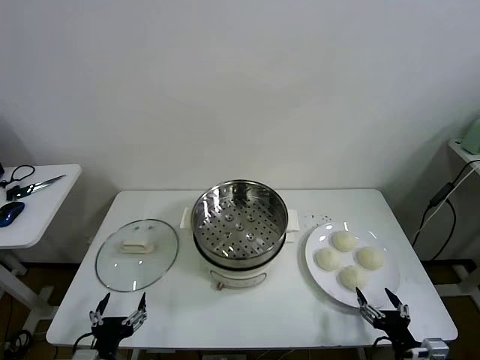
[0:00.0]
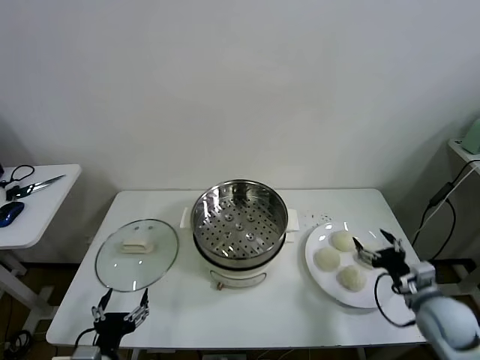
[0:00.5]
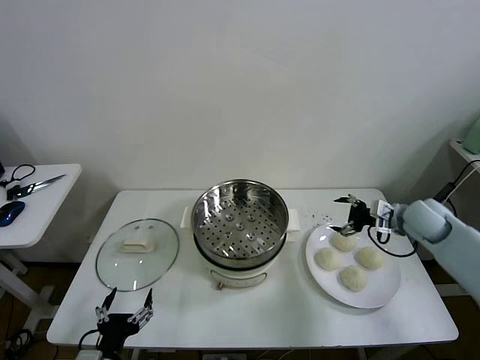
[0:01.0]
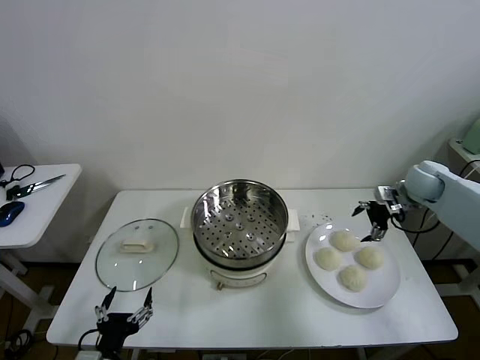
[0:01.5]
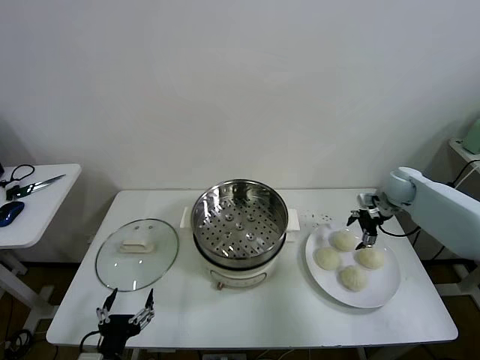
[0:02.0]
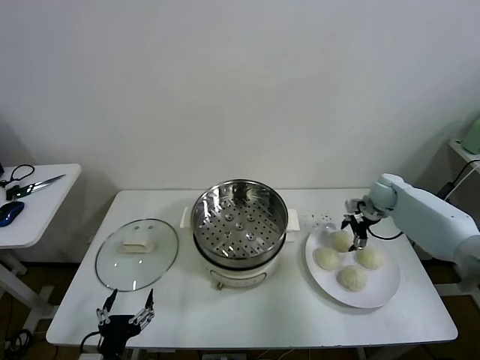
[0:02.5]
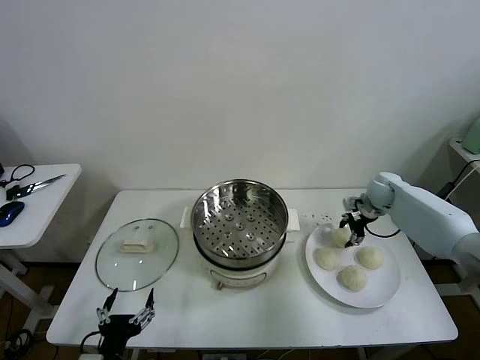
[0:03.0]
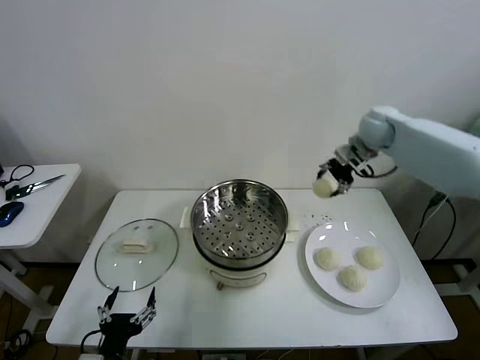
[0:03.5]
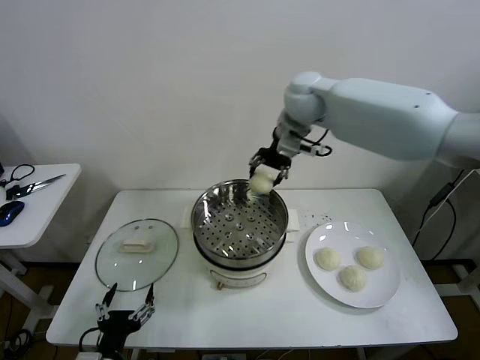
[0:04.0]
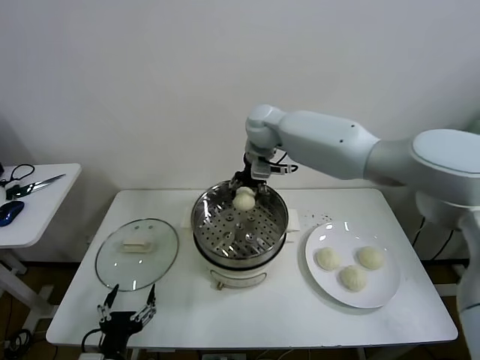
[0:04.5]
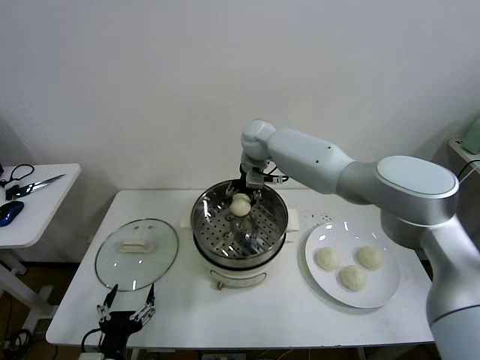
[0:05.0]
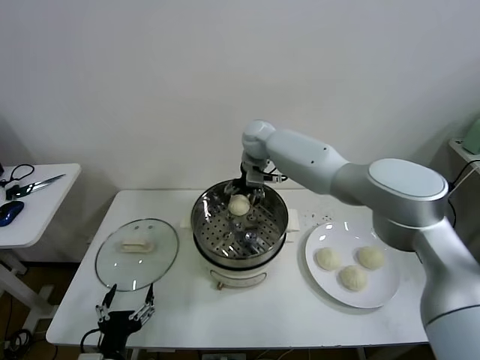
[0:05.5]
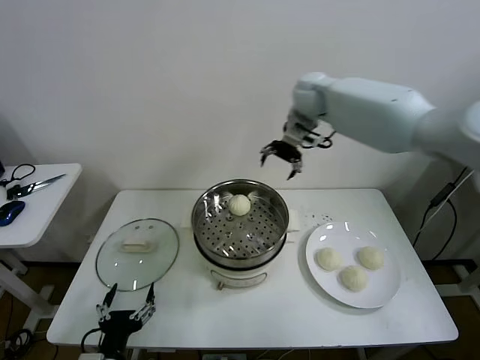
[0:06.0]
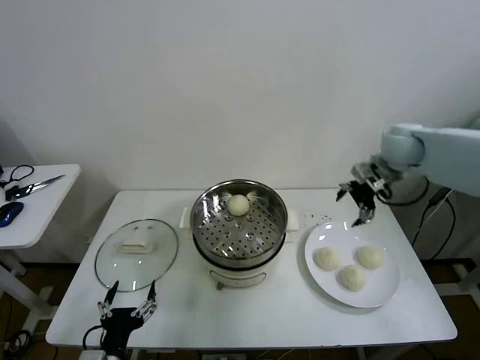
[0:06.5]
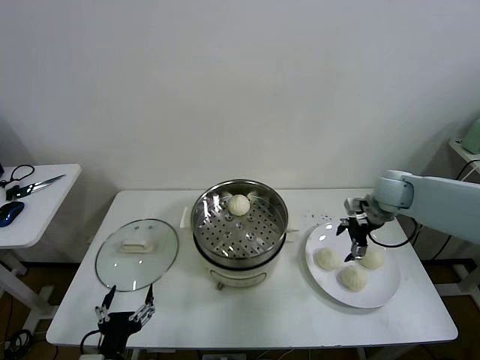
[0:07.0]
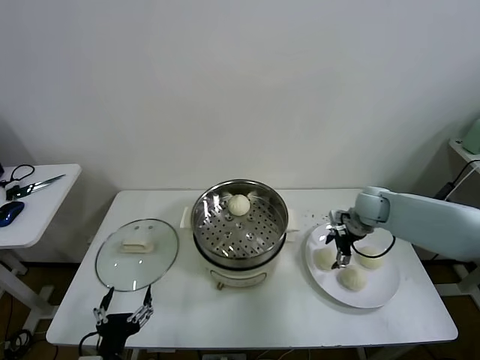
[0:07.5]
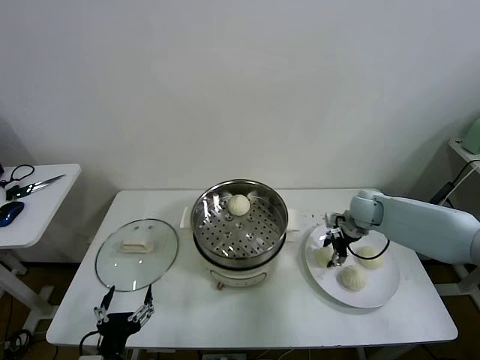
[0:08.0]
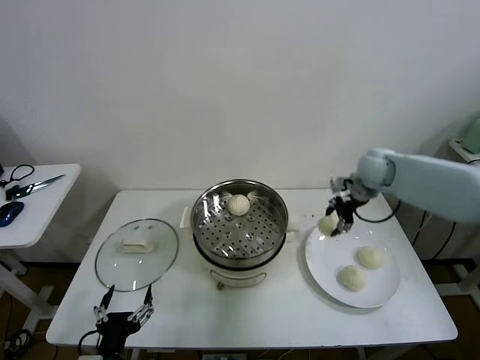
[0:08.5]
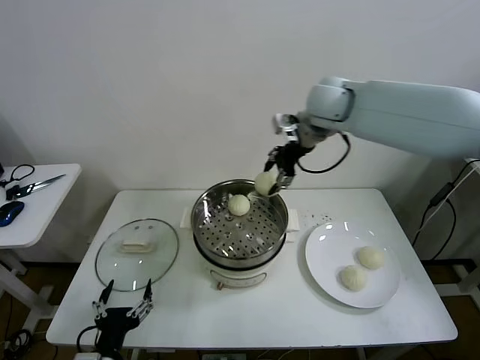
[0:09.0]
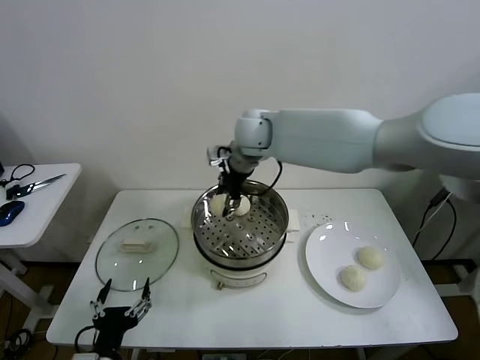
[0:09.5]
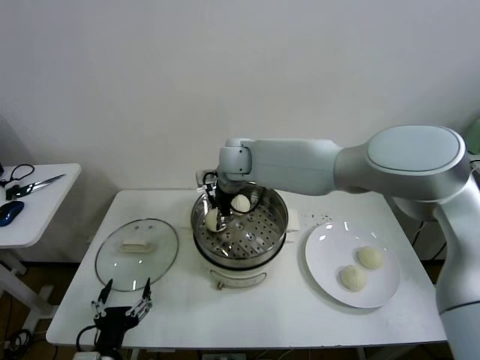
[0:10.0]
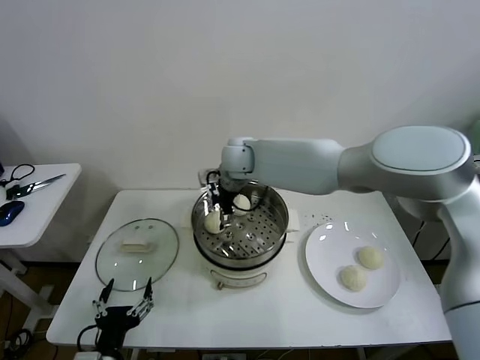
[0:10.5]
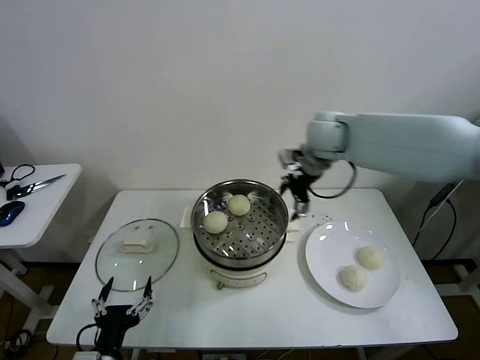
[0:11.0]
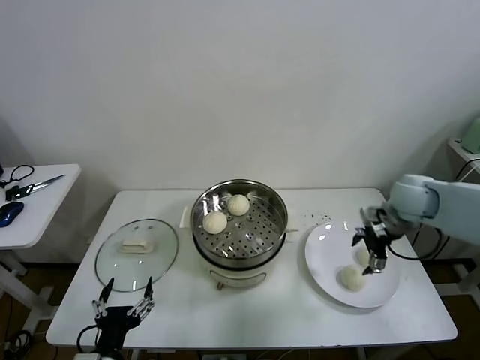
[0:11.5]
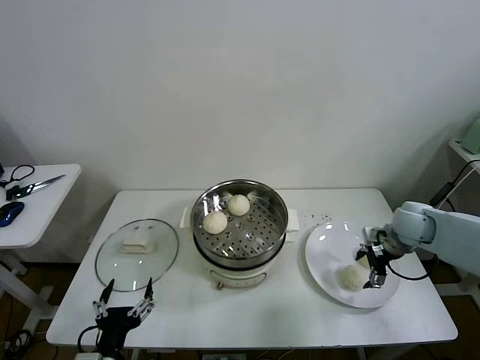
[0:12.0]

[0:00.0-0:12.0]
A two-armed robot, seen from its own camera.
Task of the whole recording: take steamed baozi put them in steamer then cover it.
Step, 0:00.0 to 0:02.5: Grasp the baozi in the plate with right gripper.
Step, 0:03.0 to 0:05.5: Place the baozi on the steamer with right gripper.
Step, 0:06.0 to 0:07.5: Grasp the baozi in the plate with right gripper.
Step, 0:08.5 to 0:10.5: Place the baozi on the steamer with right gripper.
0:02.0 to 0:04.0: The right gripper shifts some 40 cm to the left and upward, and closes its fingers.
0:04.0 to 0:06.0: The right gripper shifts approximately 10 cm to the right, and opens its fingers.
0:06.0 to 0:08.0: The right gripper shifts some 30 cm downward and to the right, and closes.
0:08.0 to 0:10.0: The right gripper heads to the left and upward, covering some 35 cm.
0:10.0 to 0:12.0: The right gripper shifts roughly 40 cm to the right, and opens its fingers.

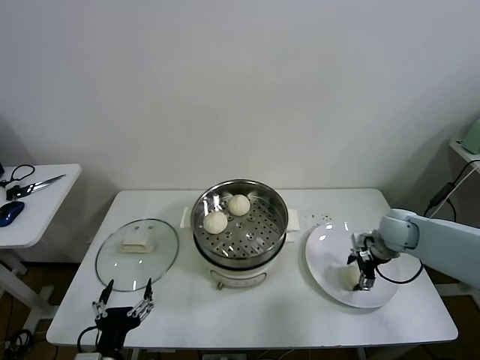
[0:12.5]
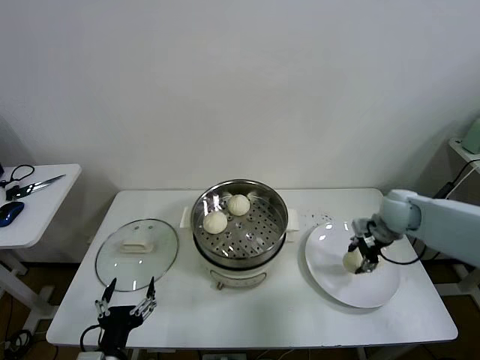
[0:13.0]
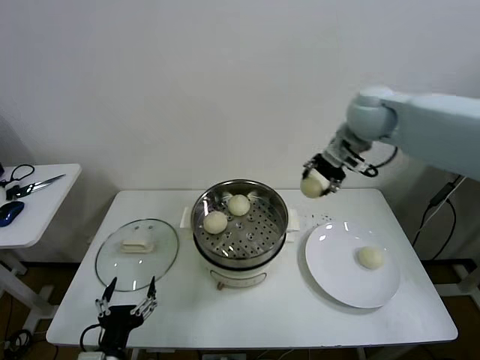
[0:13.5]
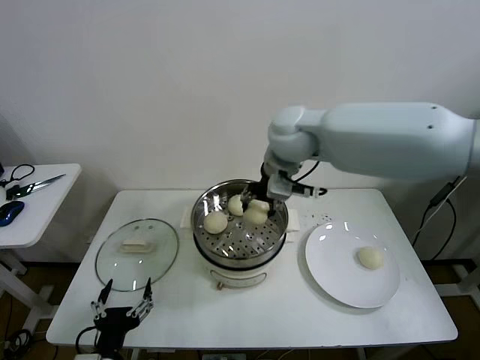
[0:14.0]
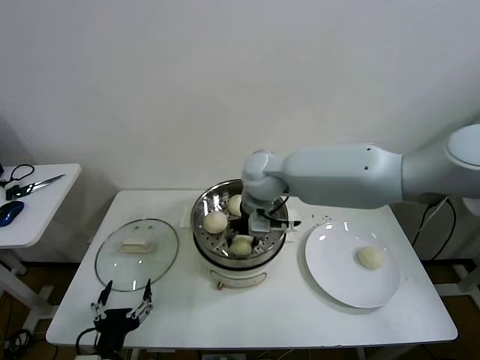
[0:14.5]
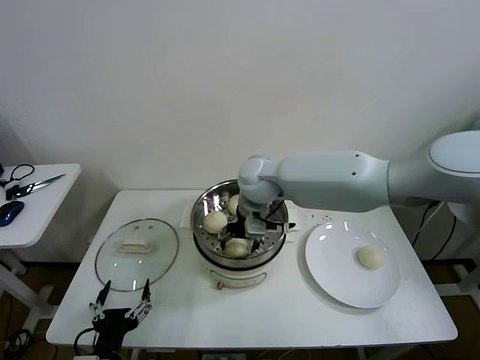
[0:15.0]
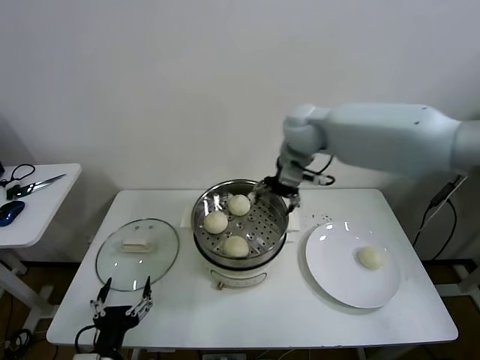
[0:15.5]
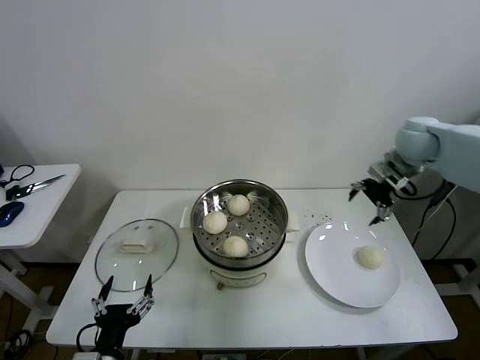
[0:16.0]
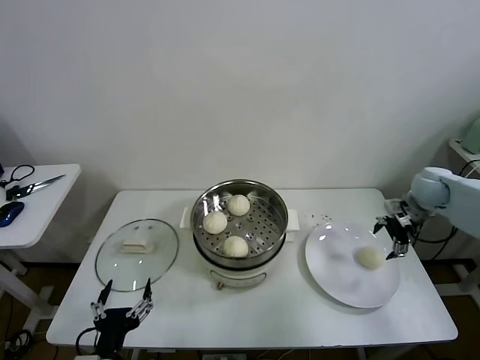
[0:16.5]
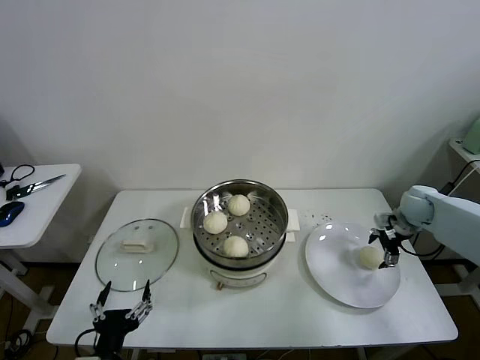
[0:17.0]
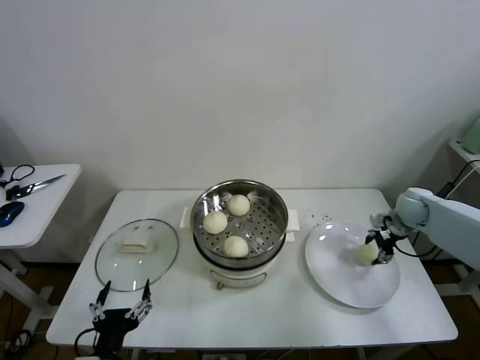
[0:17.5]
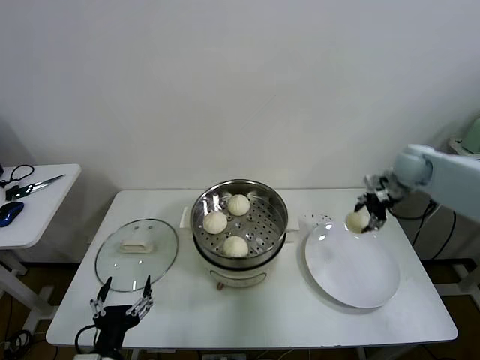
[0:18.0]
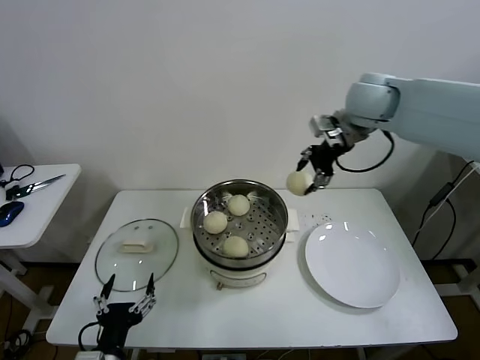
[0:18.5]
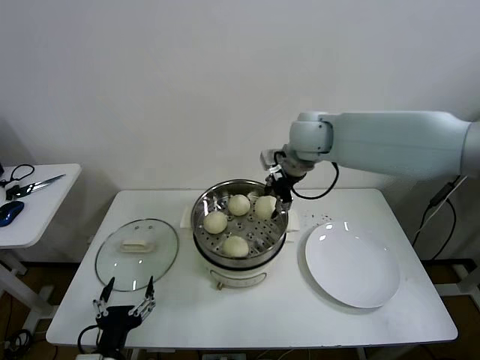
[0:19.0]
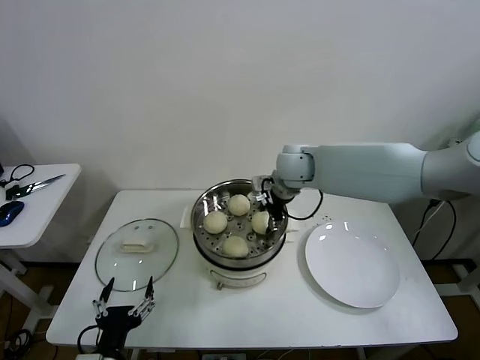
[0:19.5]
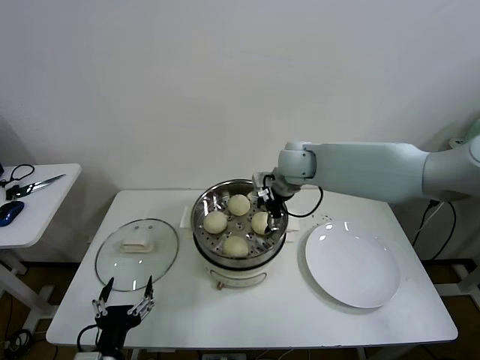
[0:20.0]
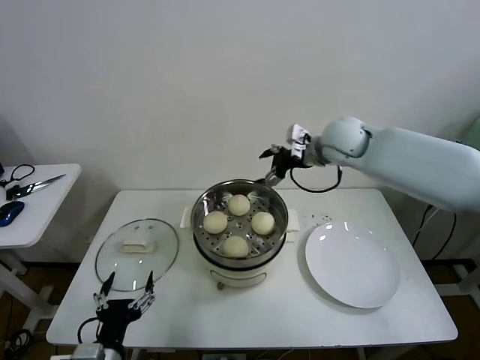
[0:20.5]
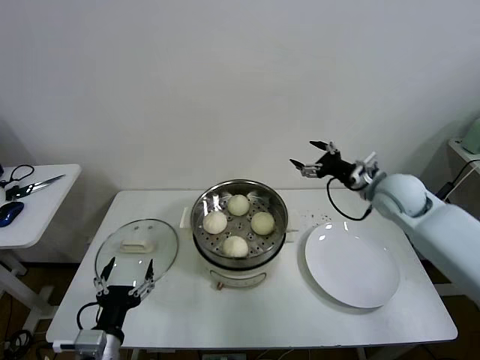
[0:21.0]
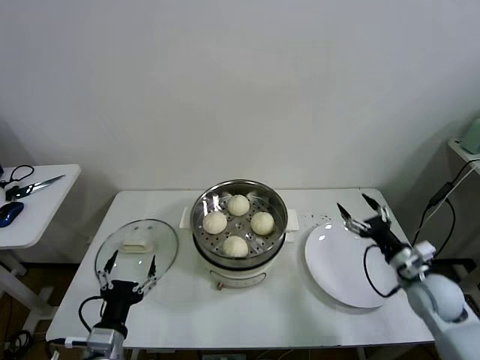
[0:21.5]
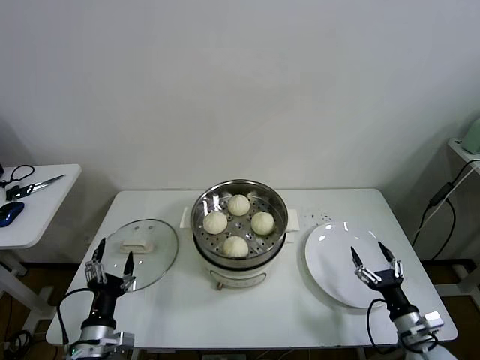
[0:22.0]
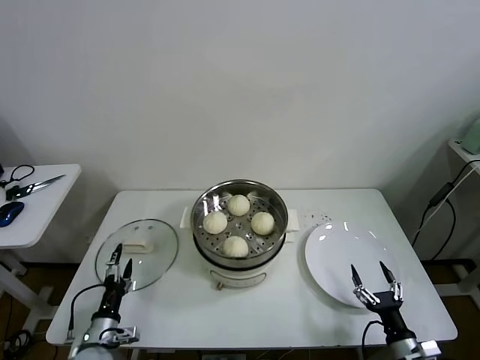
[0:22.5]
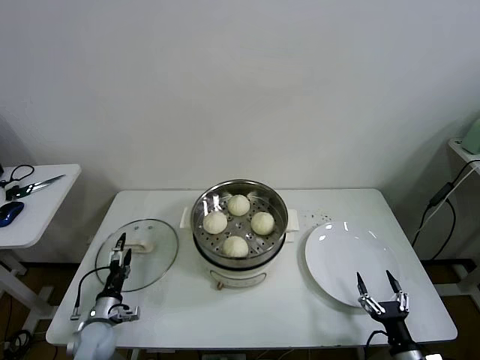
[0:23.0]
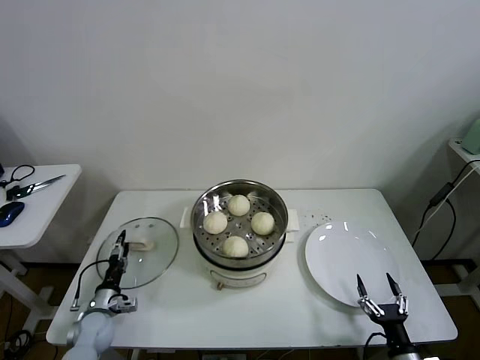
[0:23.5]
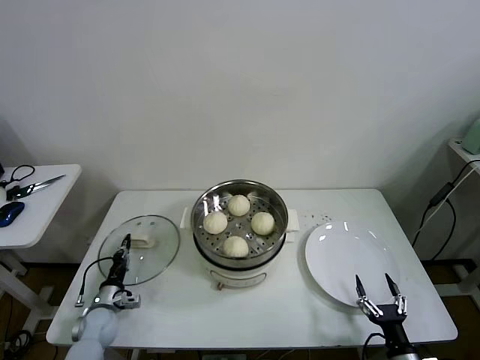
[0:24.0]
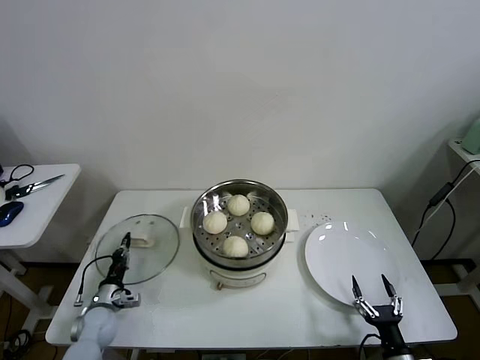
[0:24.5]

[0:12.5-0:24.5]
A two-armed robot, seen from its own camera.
Task of the whole recording: take steamed baozi put them in steamer then cover it.
Step, 0:13.0 to 0:15.0: Place the baozi on the steamer with right gripper.
Step, 0:15.5 to 0:17.5: Grasp the baozi in the plate with right gripper.
Step, 0:18.0 to 0:19.5: Place the baozi on the steamer with right gripper.
Step, 0:20.0 to 0:24.0: Grasp the pot lid with left gripper.
0:12.5 to 0:14.5: The right gripper shifts roughly 35 cm to the left and upward, and closes its fingers.
0:14.5 to 0:16.5: The right gripper goes roughly 40 cm to the right, and opens up.
0:16.5 to 0:18.5: The right gripper goes roughly 30 cm upward and to the left, and closes up.
0:18.5 to 0:20.5: The right gripper goes about 10 cm downward, and opens up.
0:20.5 to 0:22.5: The left gripper goes approximately 20 cm downward, to the left and forward. The right gripper travels downward, backward and to the right by some 60 cm.
0:22.5 to 0:24.5: The left gripper is displaced forward by about 10 cm, and closes.

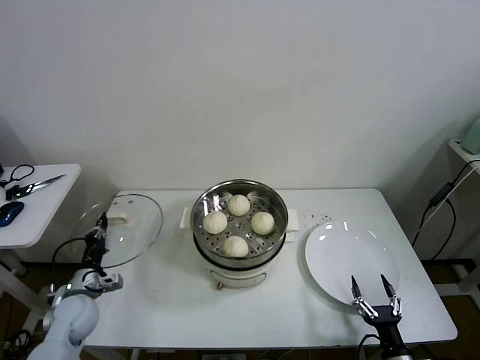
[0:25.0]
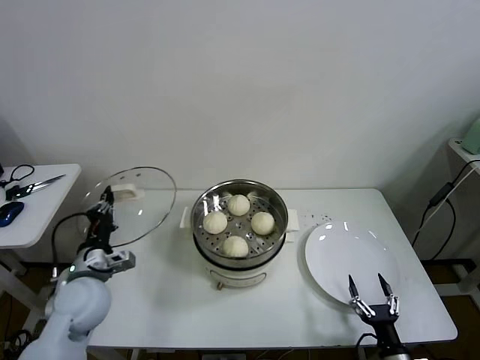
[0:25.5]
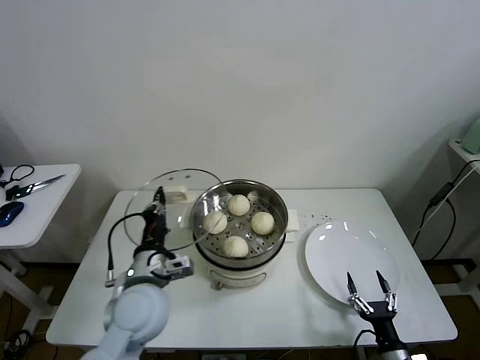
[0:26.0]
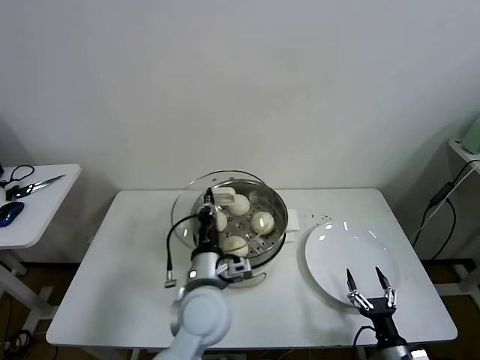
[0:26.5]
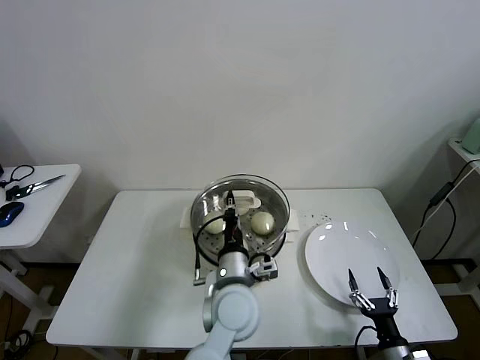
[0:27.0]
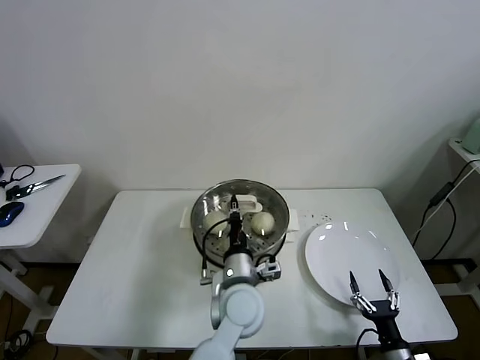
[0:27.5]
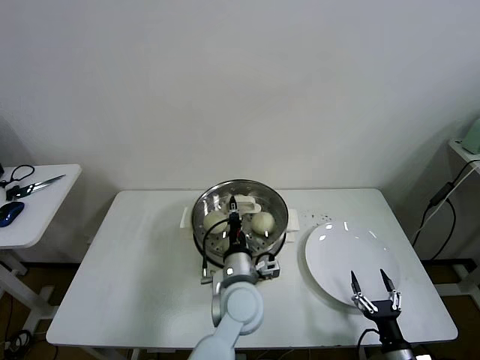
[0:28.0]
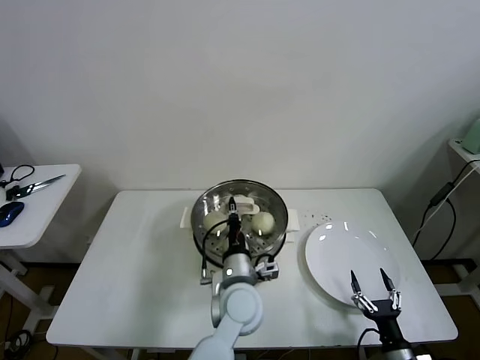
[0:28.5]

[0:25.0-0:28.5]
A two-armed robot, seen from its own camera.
Task of the whole recording: take steamed baozi put them in steamer then cover it.
0:25.0 to 0:27.0: The left gripper goes some 35 cm to the right.
0:27.0 to 0:28.5: The grippers make only small movements.
